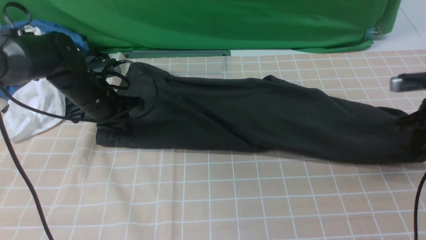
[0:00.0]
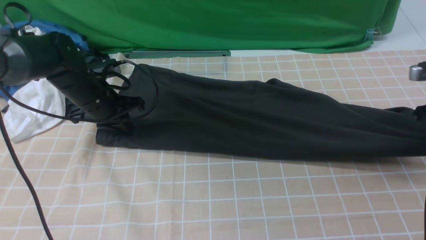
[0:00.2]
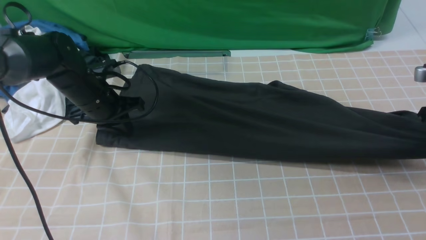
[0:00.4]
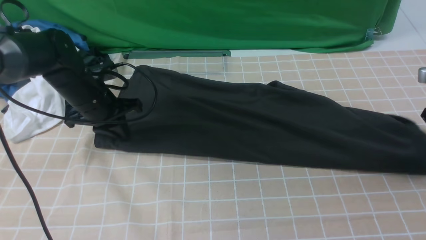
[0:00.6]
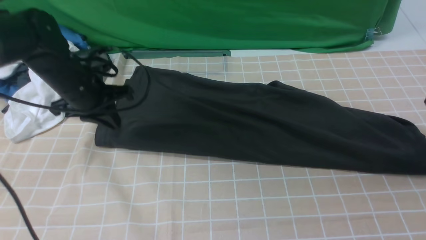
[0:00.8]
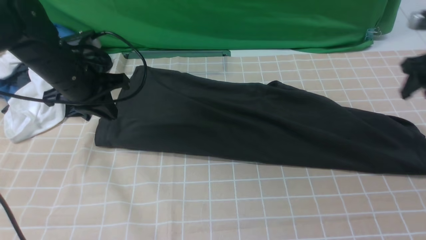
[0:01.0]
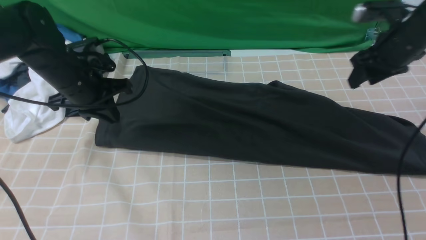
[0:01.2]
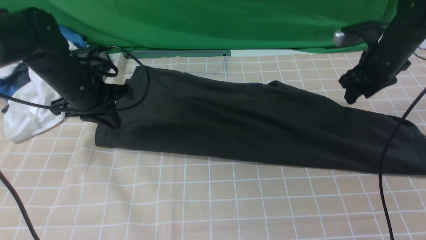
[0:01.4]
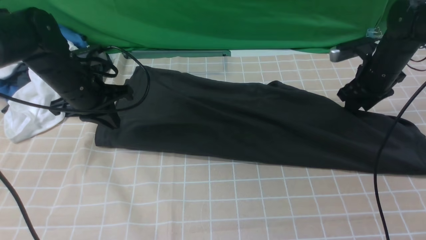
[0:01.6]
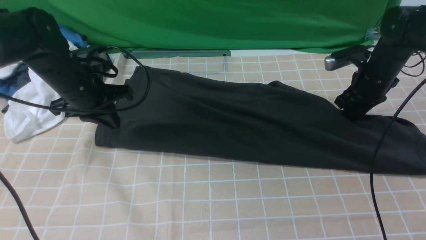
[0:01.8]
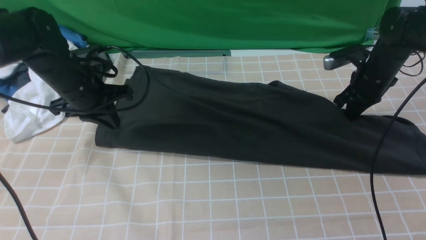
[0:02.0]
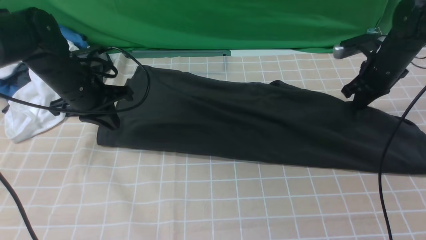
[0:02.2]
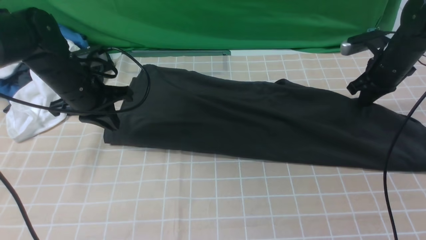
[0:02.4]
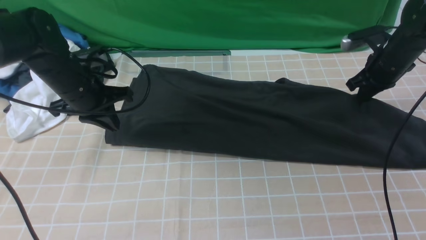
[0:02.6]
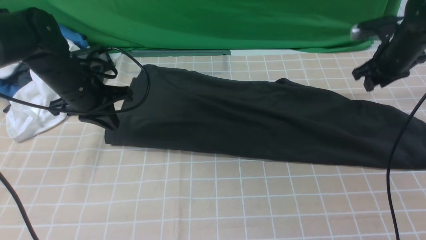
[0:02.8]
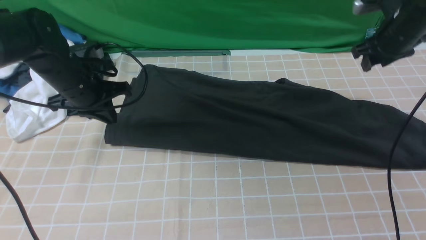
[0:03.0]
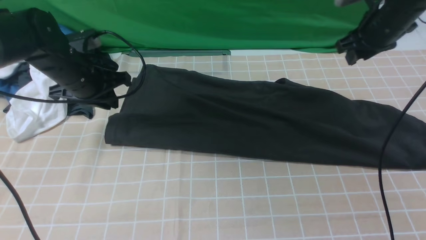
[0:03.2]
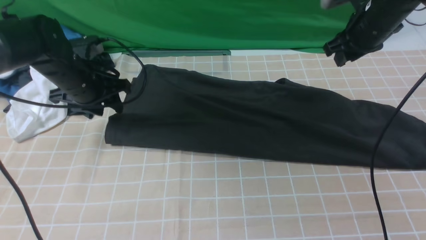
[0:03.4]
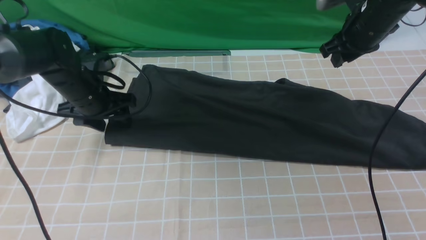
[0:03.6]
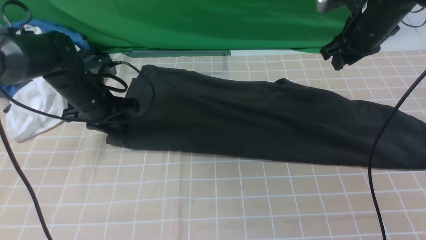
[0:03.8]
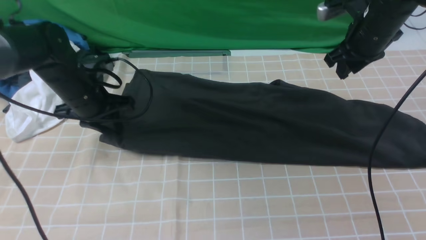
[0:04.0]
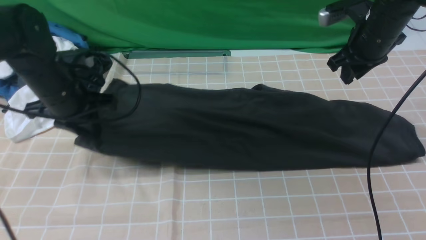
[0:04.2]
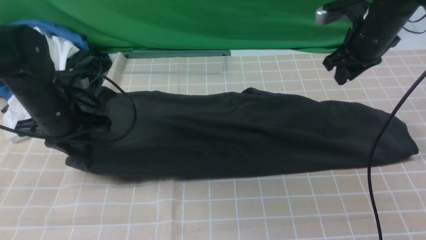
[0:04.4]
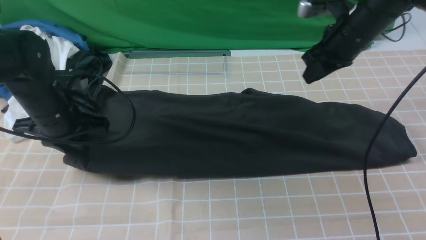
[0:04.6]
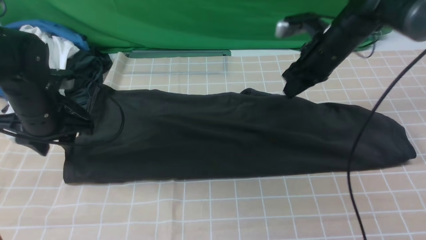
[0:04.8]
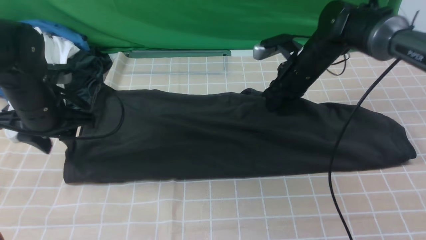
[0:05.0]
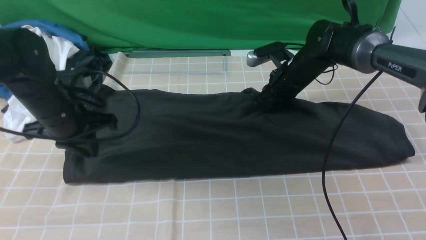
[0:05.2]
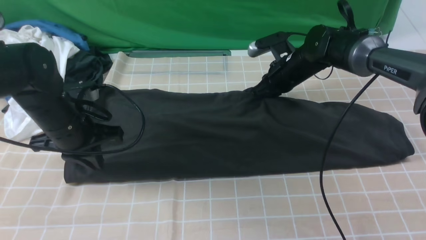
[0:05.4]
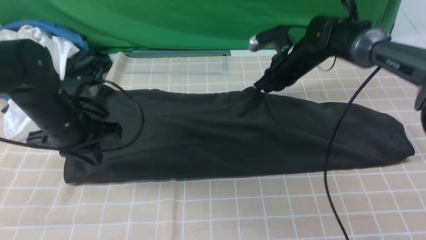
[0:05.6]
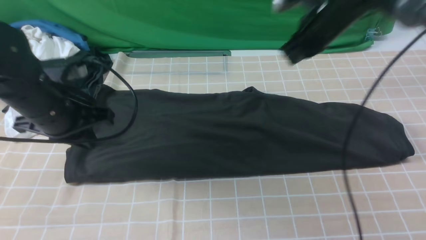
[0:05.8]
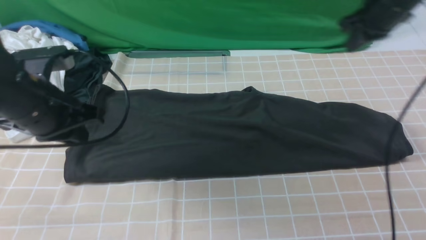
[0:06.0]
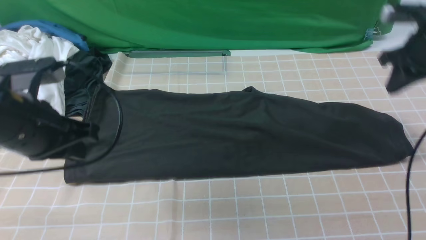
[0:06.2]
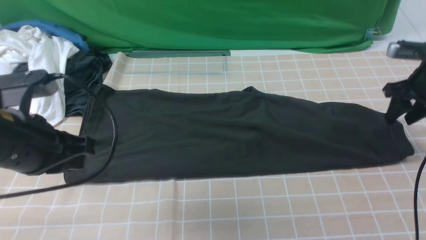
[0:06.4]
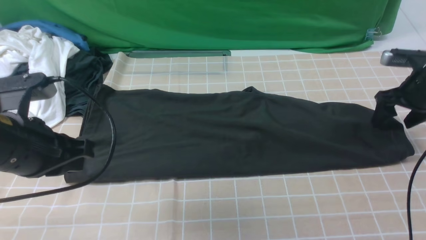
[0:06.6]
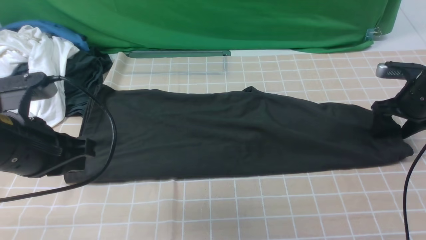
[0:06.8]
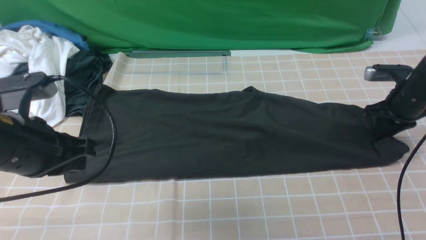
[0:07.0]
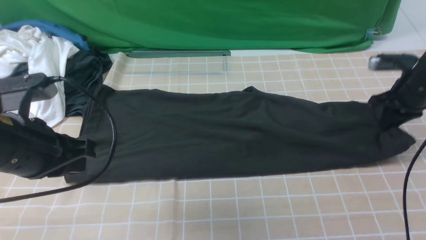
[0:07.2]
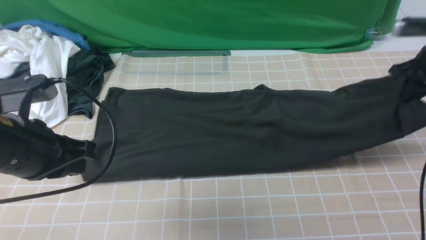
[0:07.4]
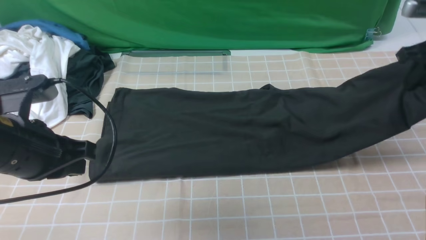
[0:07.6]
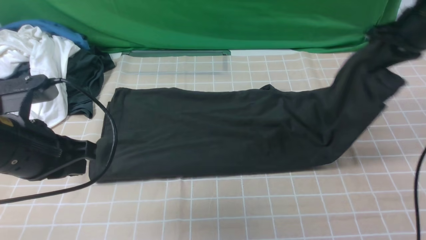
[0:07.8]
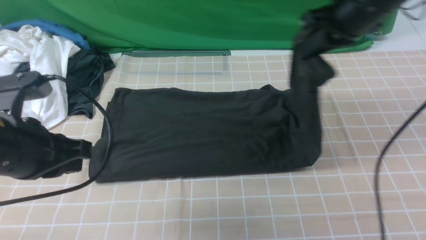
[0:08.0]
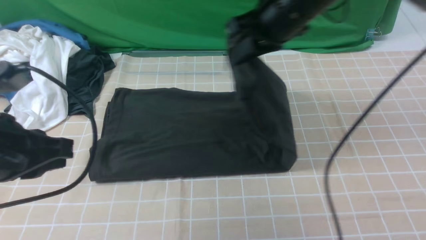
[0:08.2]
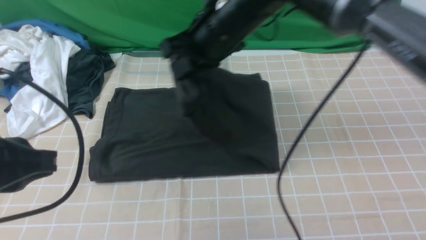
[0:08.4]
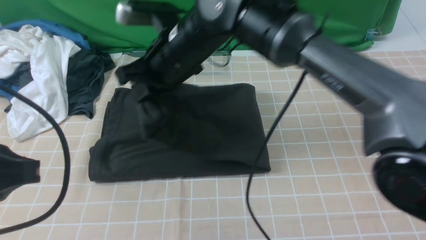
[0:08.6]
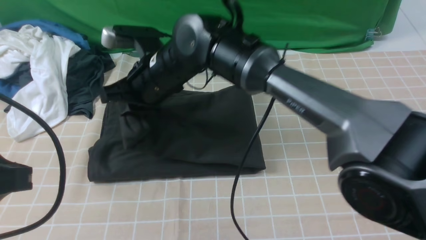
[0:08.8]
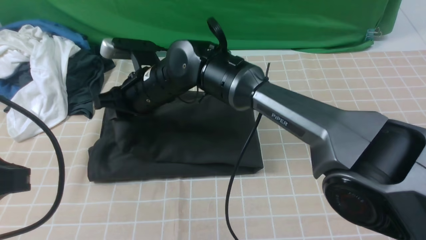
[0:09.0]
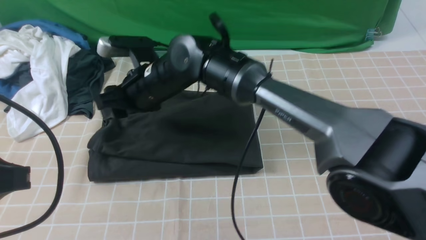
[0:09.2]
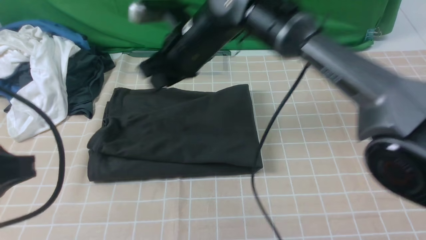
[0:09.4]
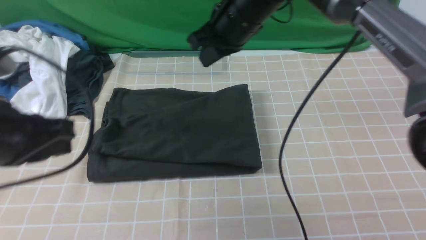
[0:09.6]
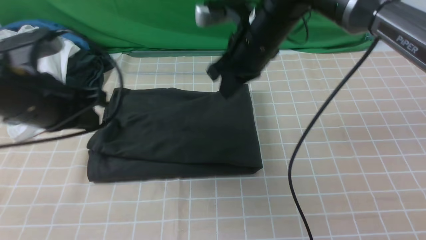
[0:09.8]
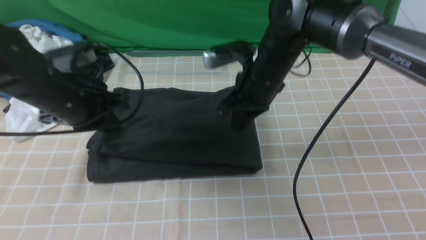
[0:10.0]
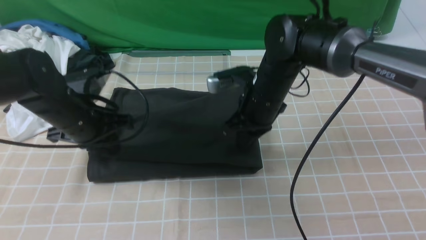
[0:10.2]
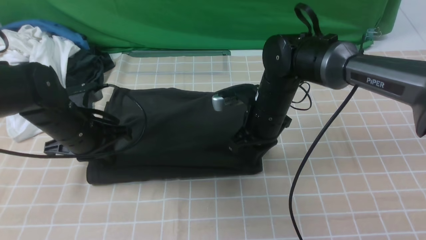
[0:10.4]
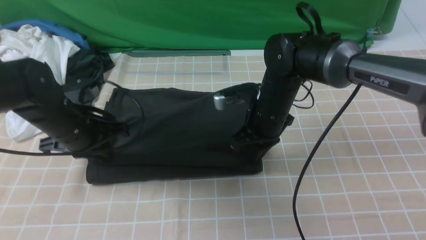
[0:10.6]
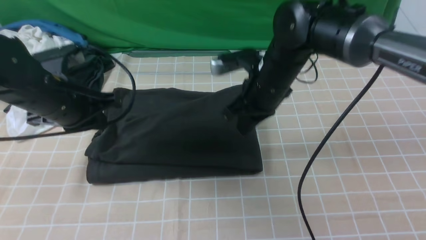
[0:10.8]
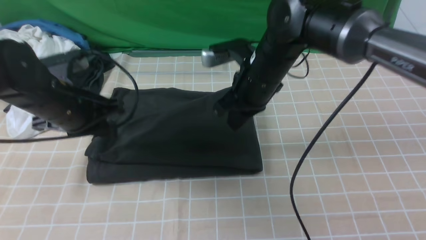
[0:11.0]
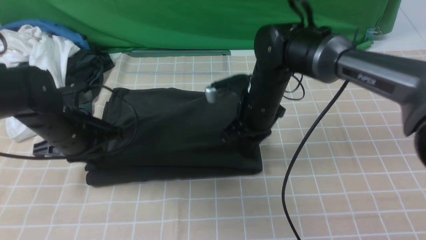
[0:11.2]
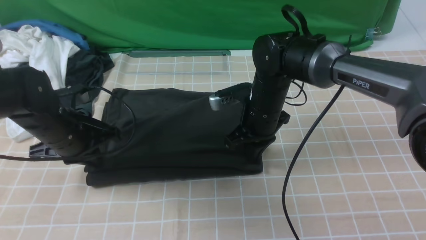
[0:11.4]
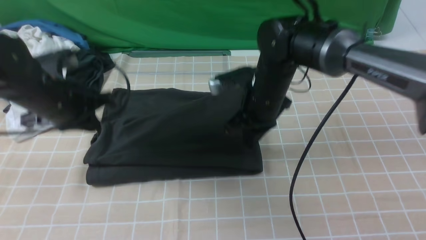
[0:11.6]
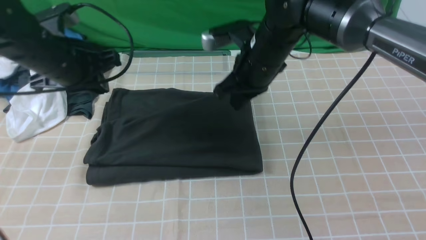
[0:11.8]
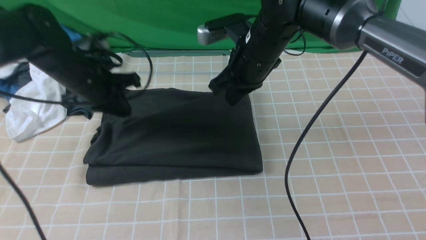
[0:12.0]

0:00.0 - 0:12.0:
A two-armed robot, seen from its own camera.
Step, 0:00.0 - 0:07.0: use the right arm to clamp the right edge of the fabric.
Step, 0:07.2 - 0:09.2: use the right arm to drag the right edge of the fabric to the left and folds it over the left edge.
0:00.0 - 0:01.6: The right gripper moves forward and to the left, roughly 10 cm, and opens its fingers. The left gripper changes place by about 5 cm.
0:01.6 - 0:03.0: The right gripper goes about 5 cm upward, and closes, then opens again.
0:03.0 - 0:04.4: The left gripper travels backward by roughly 5 cm, and opens, then closes once more; the right gripper goes some 5 cm to the left.
0:04.4 - 0:06.0: The right gripper goes about 5 cm to the right. Meanwhile the left gripper travels backward and upward by some 10 cm, and opens, then closes once more.
0:06.0 - 0:07.6: Both grippers move backward, roughly 5 cm. The right gripper moves some 10 cm downward and comes back, and opens and closes again.
0:07.6 - 0:09.0: The right gripper goes some 40 cm to the left, and opens; the left gripper is displaced backward and upward by approximately 10 cm.
0:09.0 - 0:10.4: The right gripper goes approximately 15 cm to the right, and closes its fingers, while the left gripper is displaced forward and downward by some 25 cm.
0:10.4 - 0:12.0: The right gripper travels upward by roughly 10 cm; the left gripper goes roughly 5 cm forward.

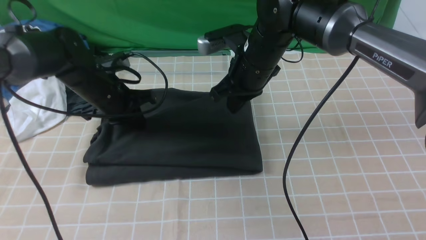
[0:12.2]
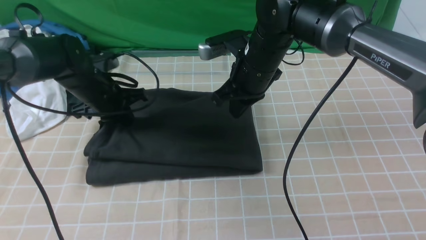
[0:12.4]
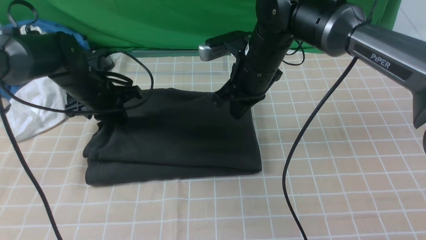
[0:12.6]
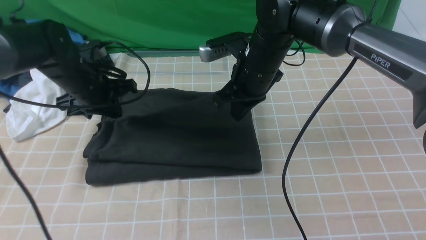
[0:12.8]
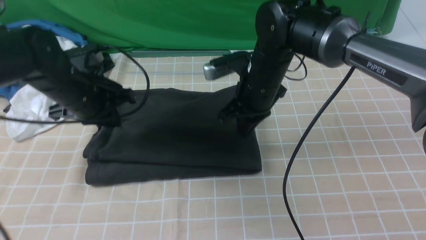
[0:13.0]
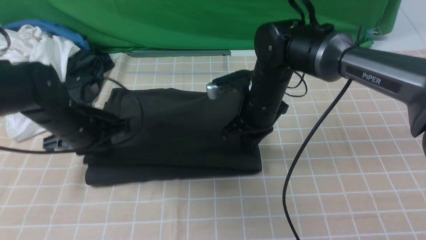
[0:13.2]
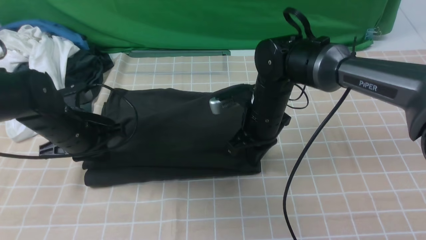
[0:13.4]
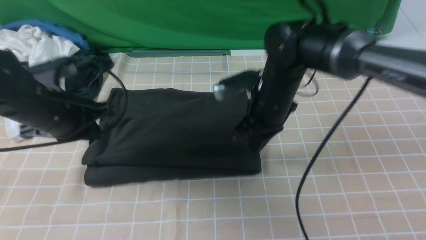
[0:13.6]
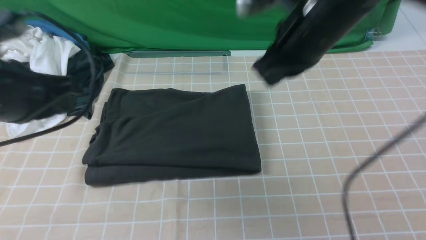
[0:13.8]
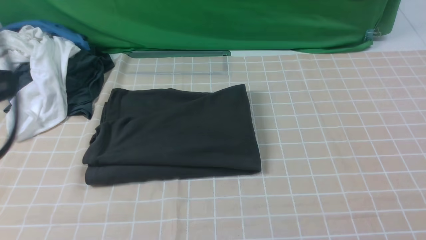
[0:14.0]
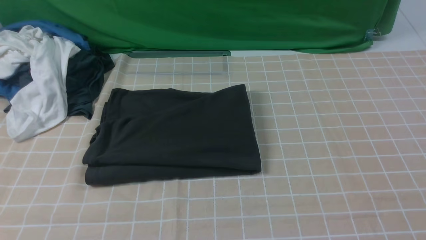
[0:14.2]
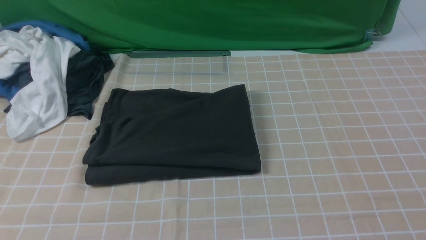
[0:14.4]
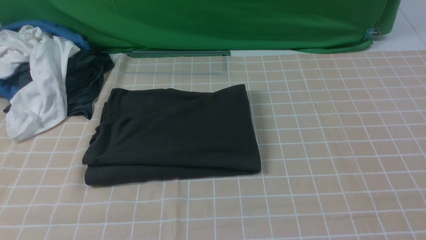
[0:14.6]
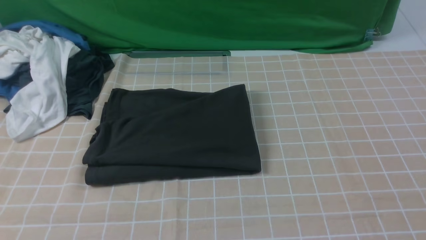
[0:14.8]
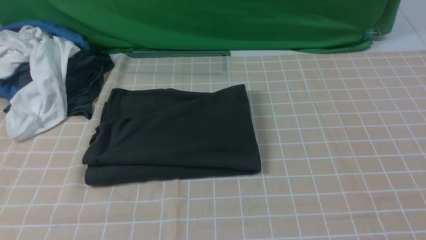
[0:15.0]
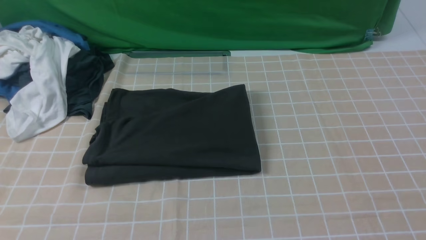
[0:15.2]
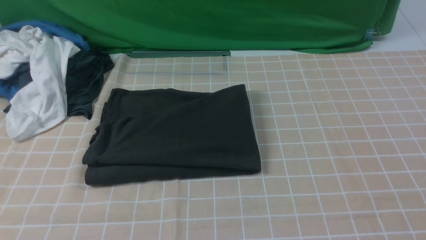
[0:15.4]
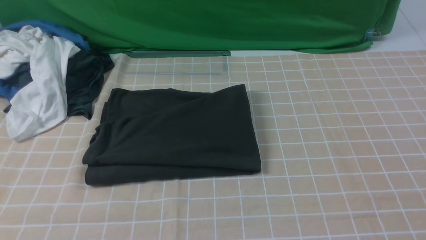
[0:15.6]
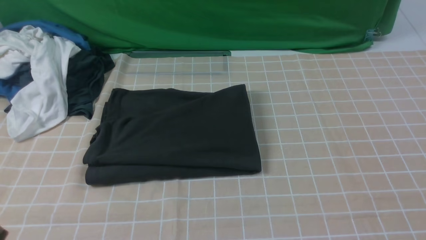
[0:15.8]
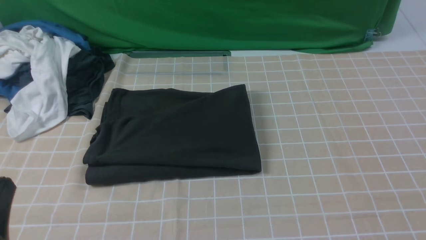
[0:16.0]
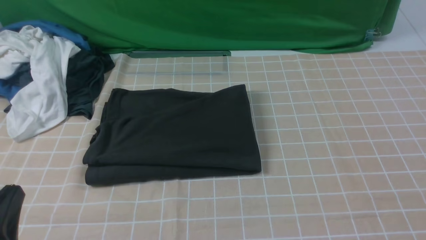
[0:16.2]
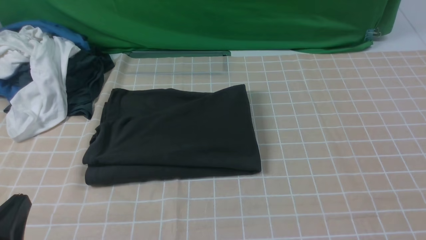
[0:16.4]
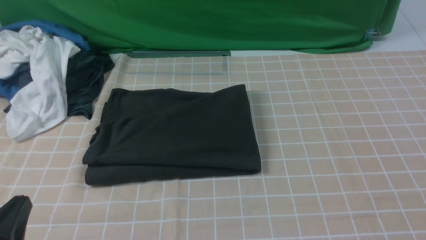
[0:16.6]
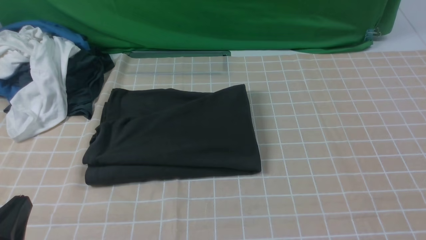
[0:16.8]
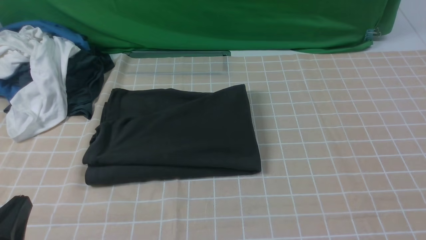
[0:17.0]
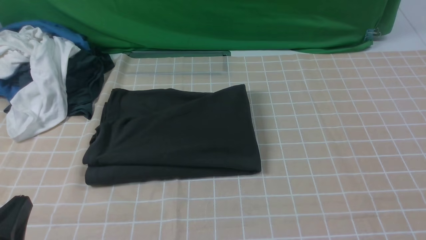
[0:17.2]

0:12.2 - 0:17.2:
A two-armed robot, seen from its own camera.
0:12.2 - 0:13.8: The left gripper travels backward and upward by roughly 25 cm, while the right gripper heads upward, backward and to the right, covering roughly 15 cm.
0:13.8 - 0:15.6: The right gripper is displaced backward and to the right by roughly 35 cm, while the left gripper heads backward, covering roughly 20 cm.
0:15.6 - 0:17.2: The left gripper shifts approximately 10 cm downward.
